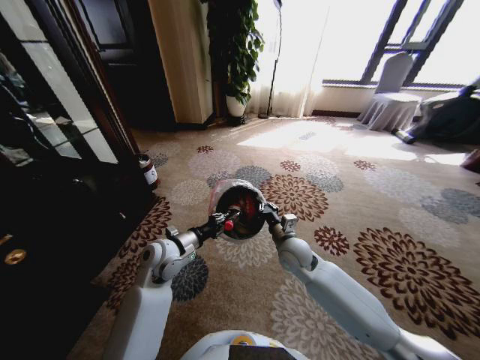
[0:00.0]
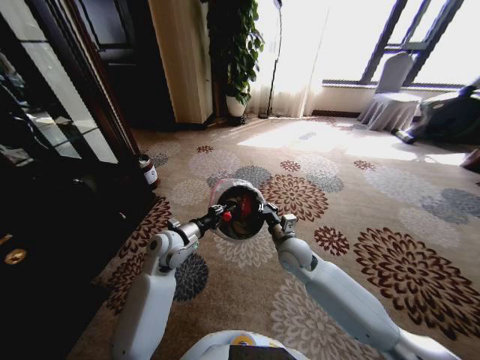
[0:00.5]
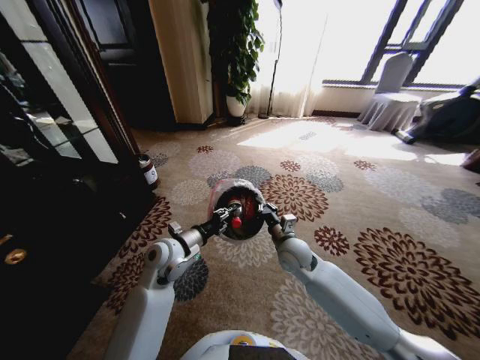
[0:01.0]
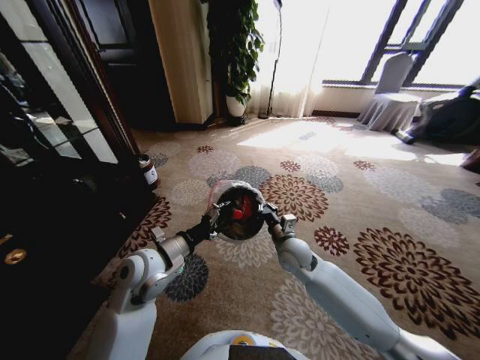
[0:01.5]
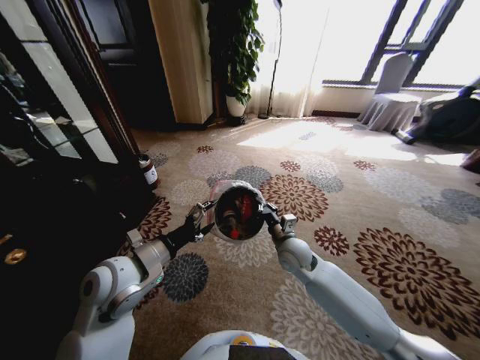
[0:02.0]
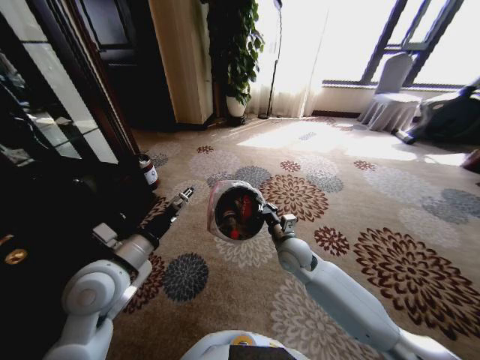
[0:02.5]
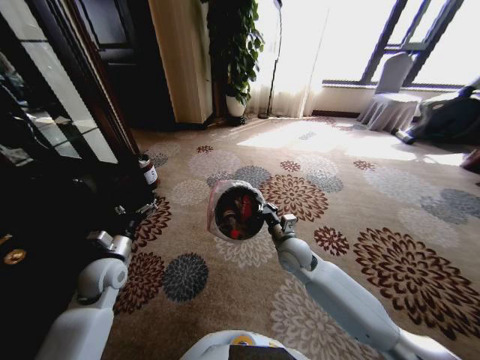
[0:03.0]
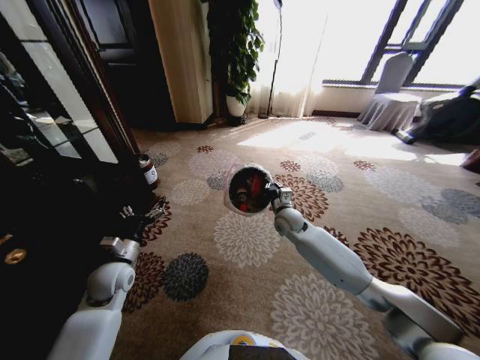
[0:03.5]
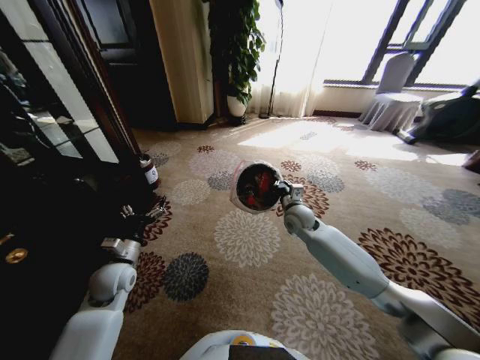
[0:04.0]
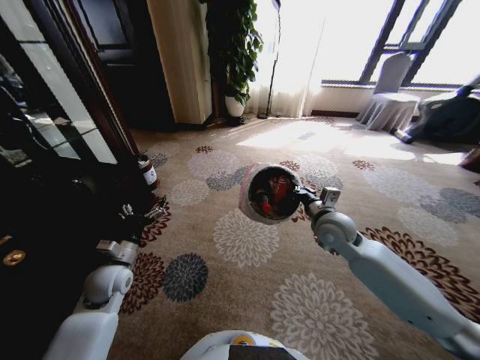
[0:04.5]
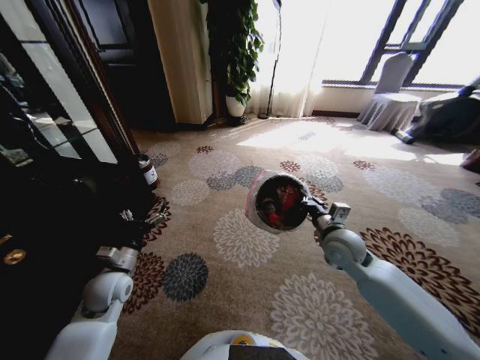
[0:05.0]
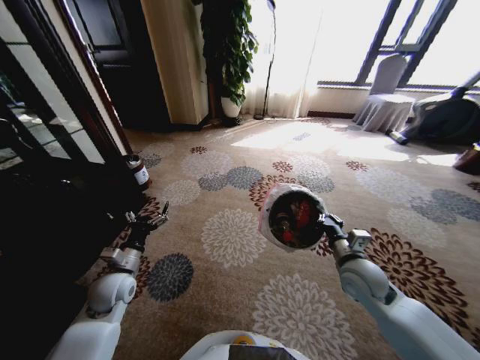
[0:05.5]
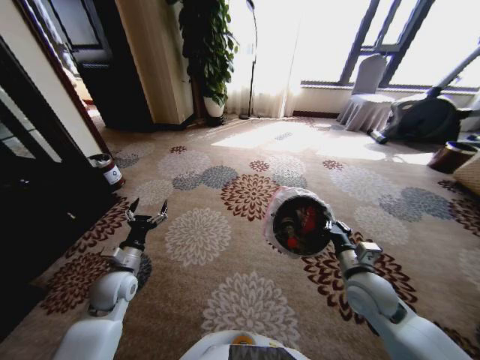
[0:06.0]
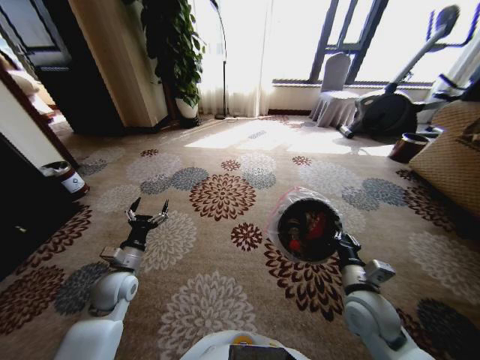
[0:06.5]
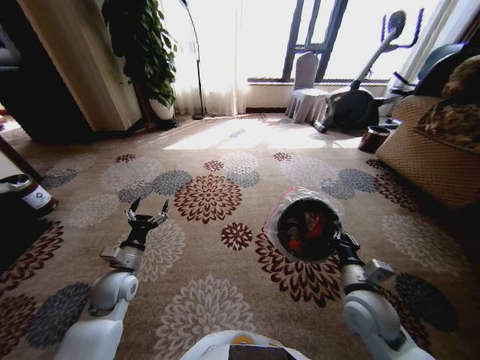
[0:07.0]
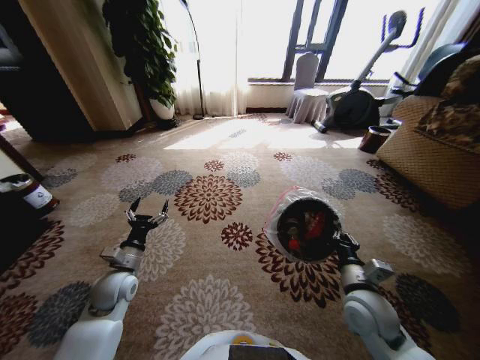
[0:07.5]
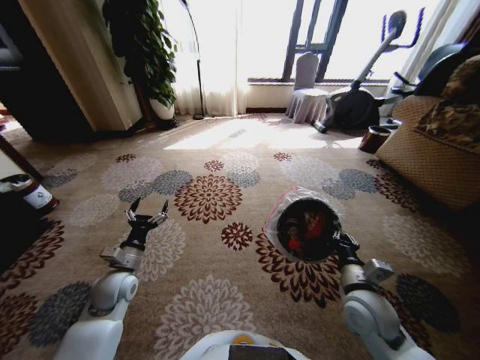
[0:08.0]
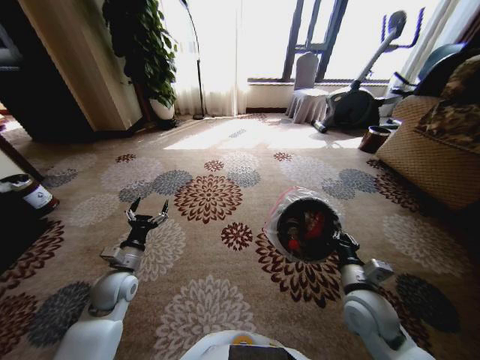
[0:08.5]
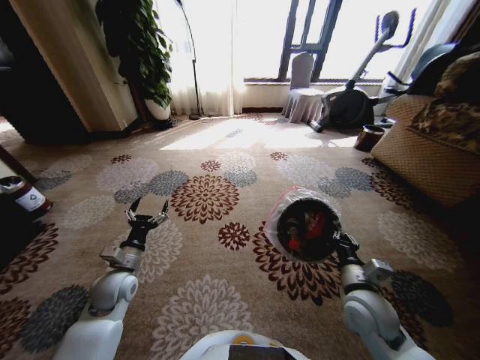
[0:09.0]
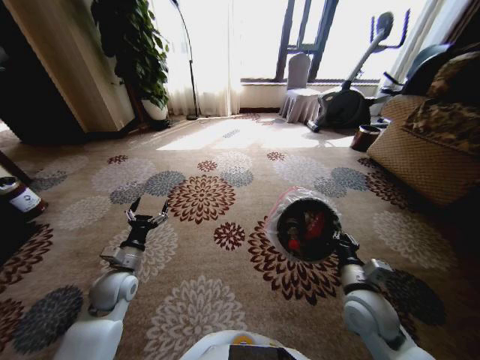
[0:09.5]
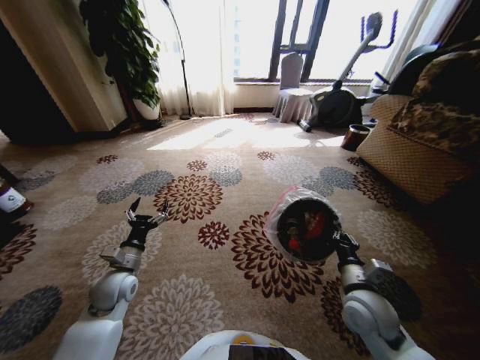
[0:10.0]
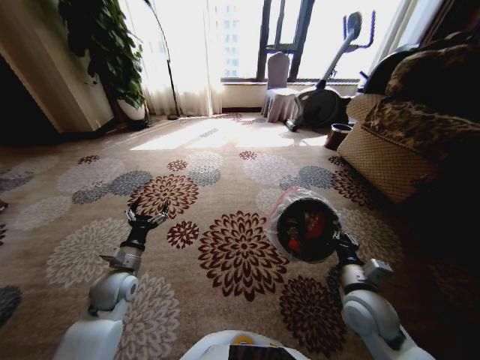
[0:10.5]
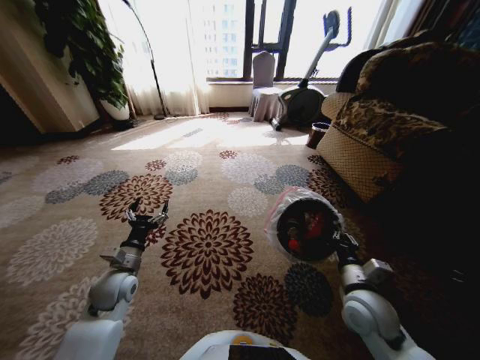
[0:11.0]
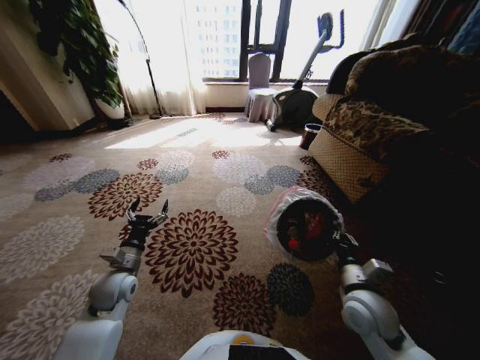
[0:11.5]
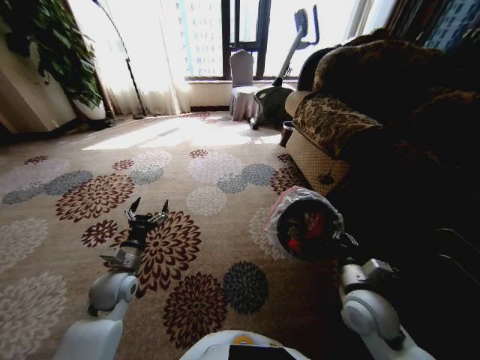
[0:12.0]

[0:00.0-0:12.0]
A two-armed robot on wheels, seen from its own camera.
Task of the whole recording: Pick up the trash from the ground and place it into the trash bin.
0:00.0 to 0:02.0: The left gripper travels backward and upward by about 10 cm, and opens its fingers.
0:02.0 to 0:04.0: The left gripper travels downward and to the left by about 15 cm; the right gripper shifts approximately 10 cm forward.
0:04.0 to 0:06.0: The right gripper goes some 25 cm backward and to the right.

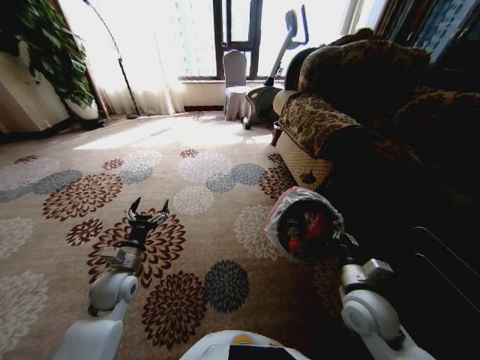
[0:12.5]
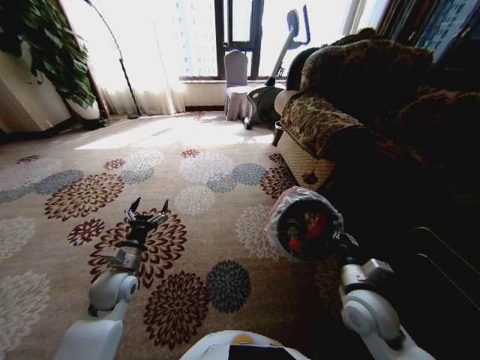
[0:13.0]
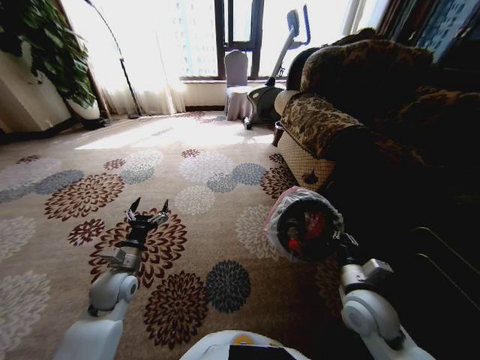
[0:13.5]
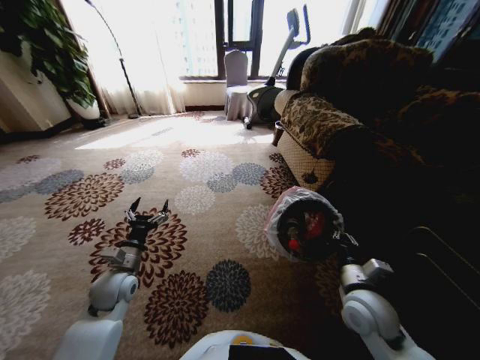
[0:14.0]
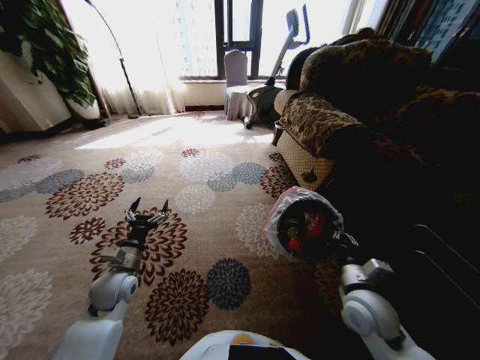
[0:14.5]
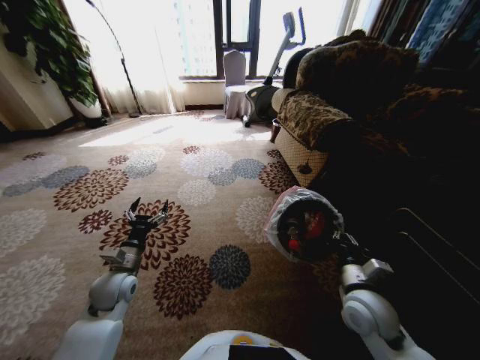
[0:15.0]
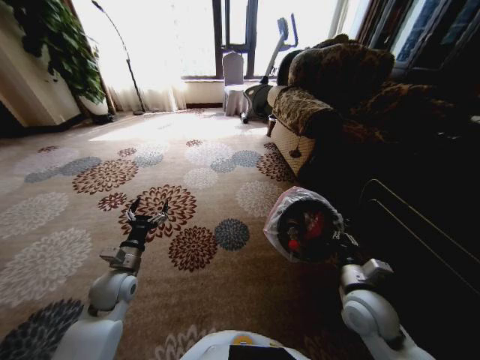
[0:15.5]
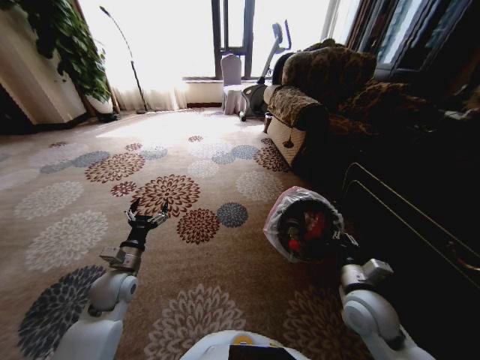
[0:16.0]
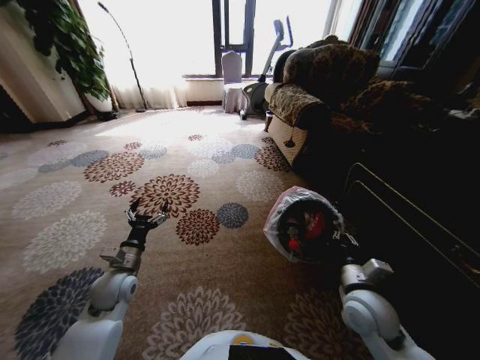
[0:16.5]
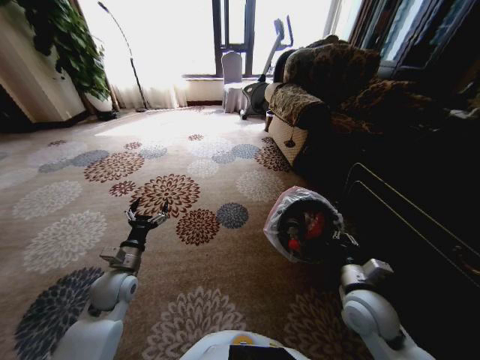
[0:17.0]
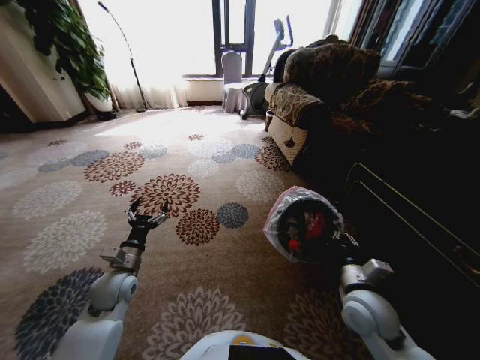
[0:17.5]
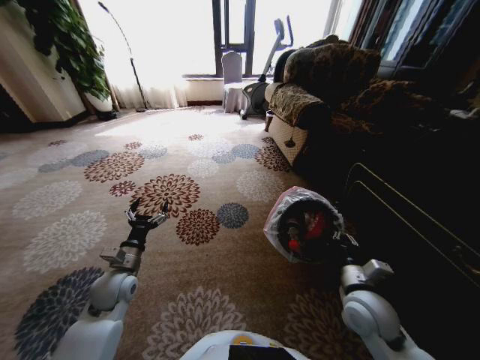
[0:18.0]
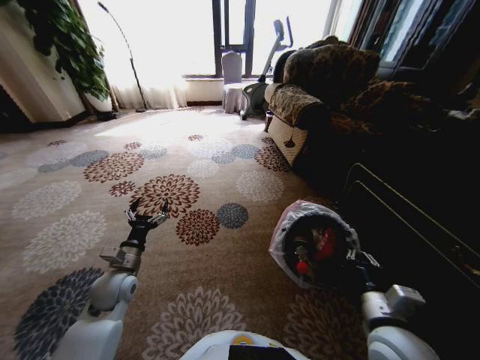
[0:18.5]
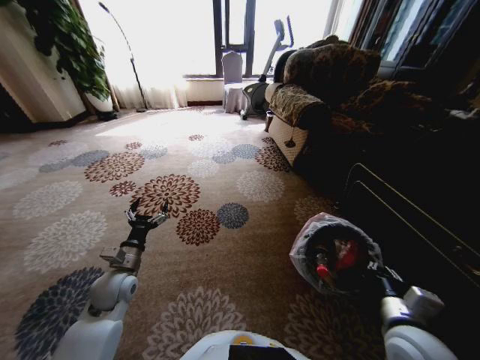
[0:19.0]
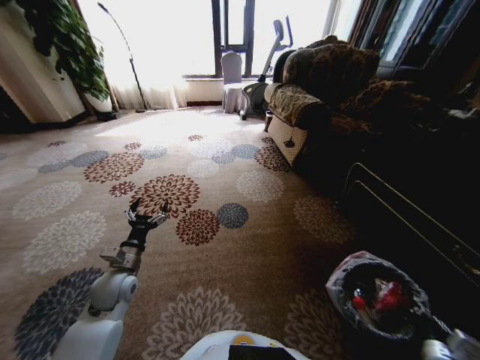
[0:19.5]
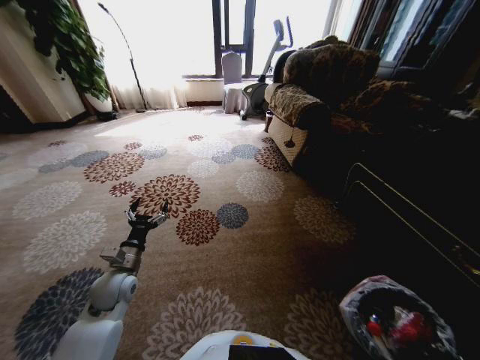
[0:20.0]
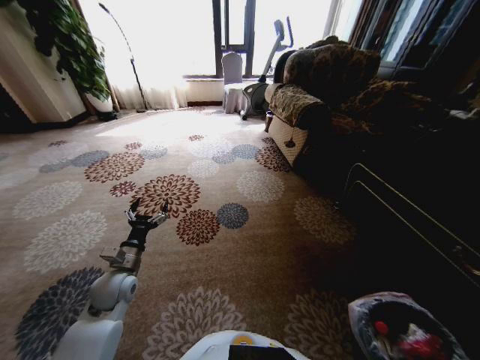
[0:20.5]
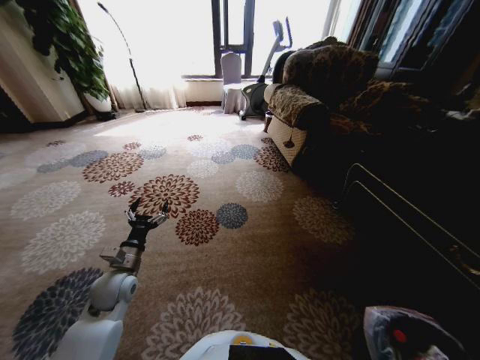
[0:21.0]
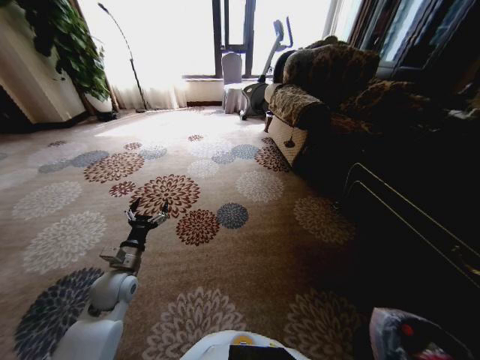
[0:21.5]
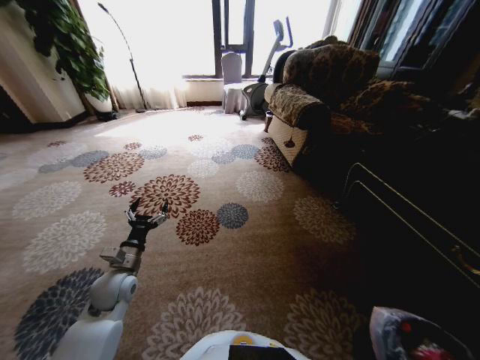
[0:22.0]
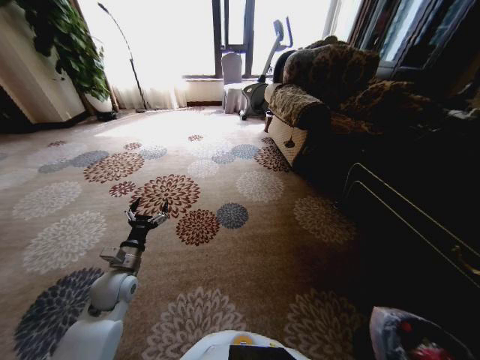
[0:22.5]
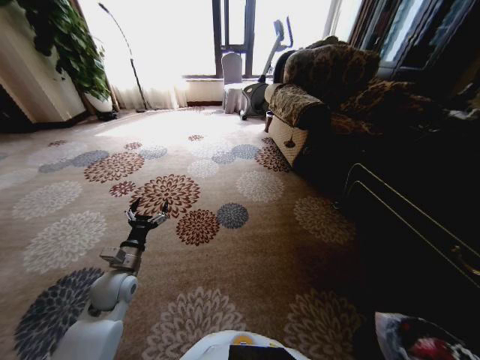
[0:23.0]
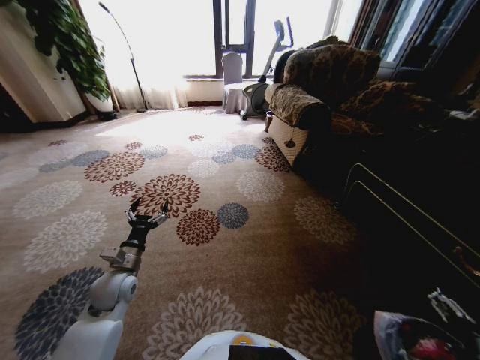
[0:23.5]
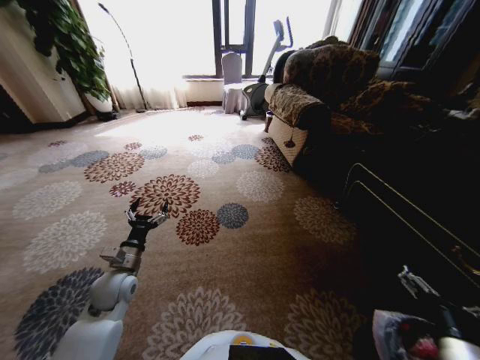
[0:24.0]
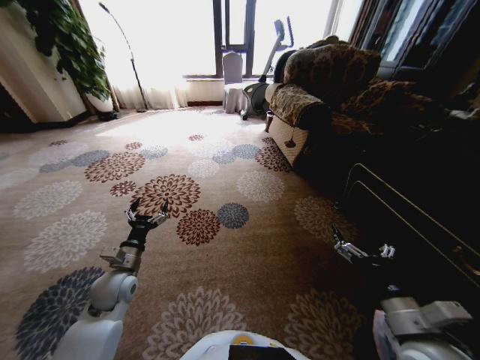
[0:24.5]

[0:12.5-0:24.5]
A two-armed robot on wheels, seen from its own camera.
Task of the whole recording: Pick up the trash from the ground and place it into the trash bin.
0:12.5 to 0:14.5: Neither gripper changes place.
0:16.5 to 0:18.5: The right gripper goes roughly 5 cm backward.
0:18.5 to 0:20.5: The right gripper goes some 20 cm to the right, downward and backward.
0:20.5 to 0:22.5: The right gripper opens its fingers.
0:22.5 to 0:24.5: The right gripper goes some 25 cm upward, forward and to the left, and opens up.

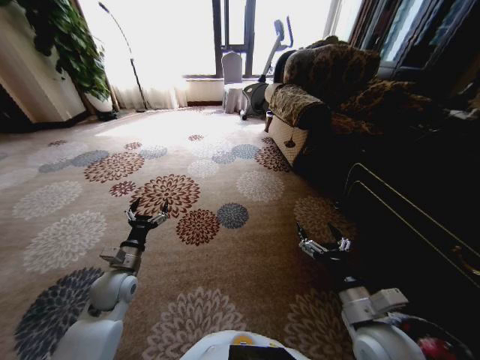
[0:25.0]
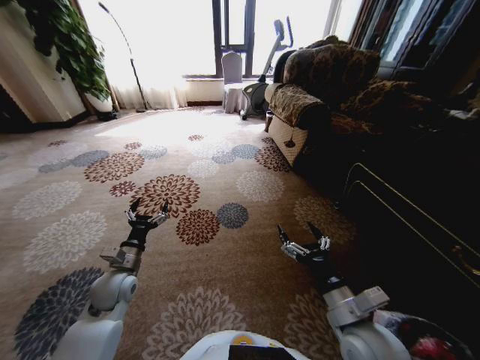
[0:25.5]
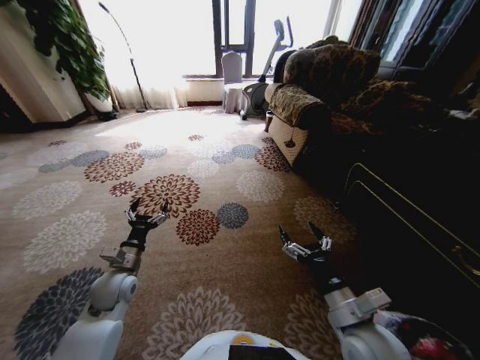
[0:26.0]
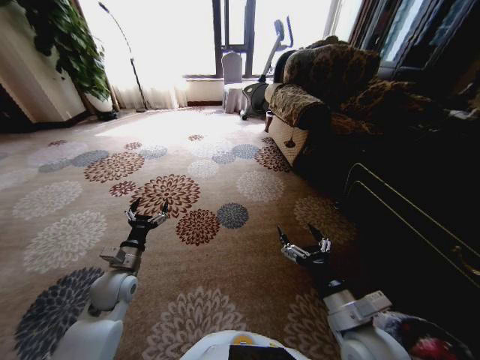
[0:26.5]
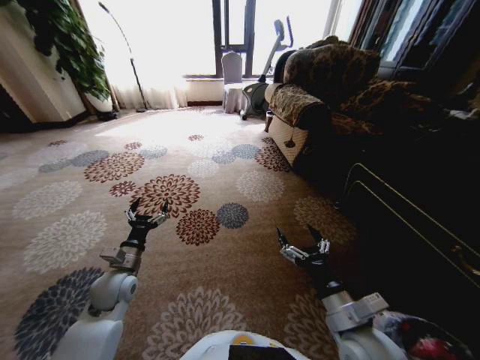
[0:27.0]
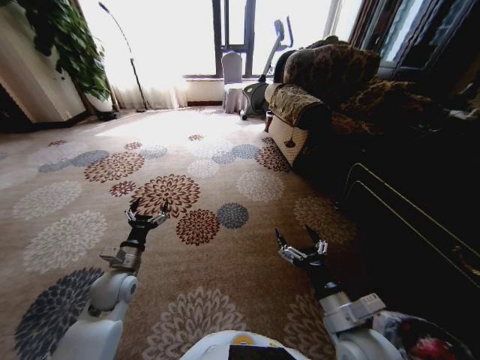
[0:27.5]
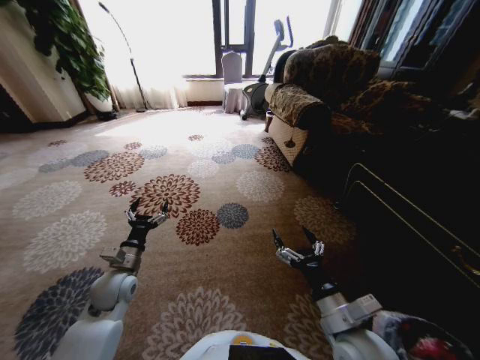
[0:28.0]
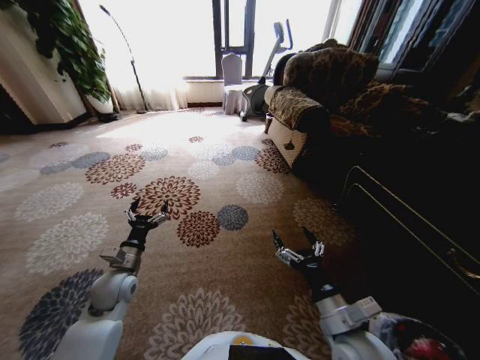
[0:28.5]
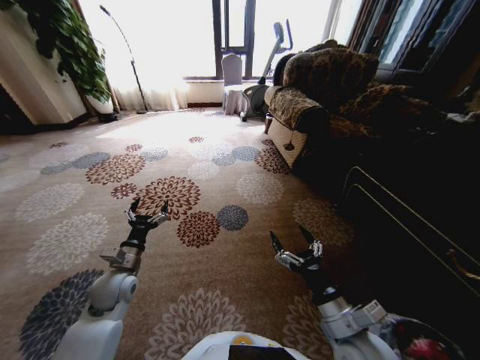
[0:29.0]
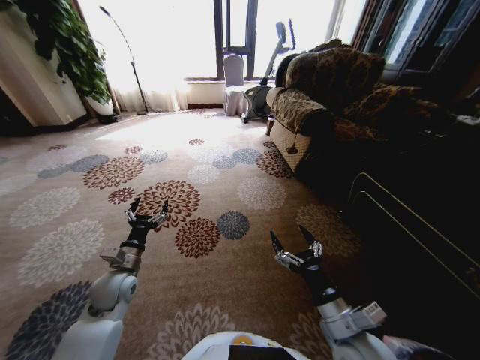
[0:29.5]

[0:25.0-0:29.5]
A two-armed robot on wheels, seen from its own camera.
Task of the whole recording: Pick up the trash from the ground and place it into the trash bin.
0:25.0 to 0:29.5: The grippers stay close to where they were, moving slightly.
